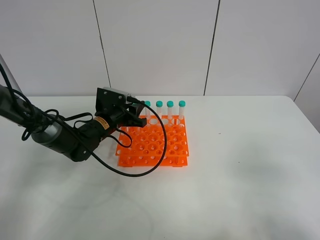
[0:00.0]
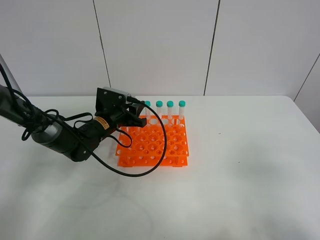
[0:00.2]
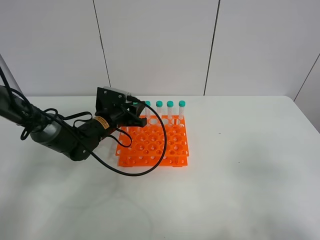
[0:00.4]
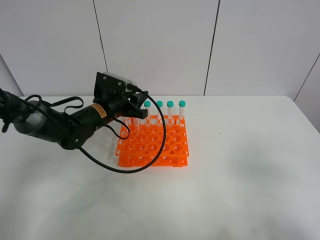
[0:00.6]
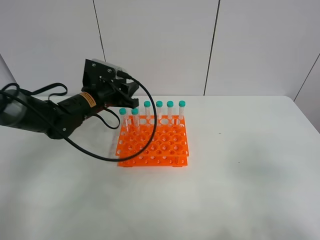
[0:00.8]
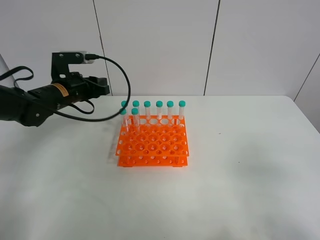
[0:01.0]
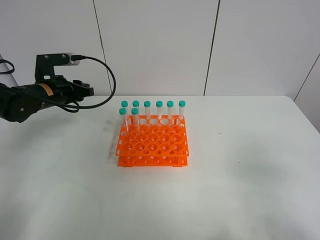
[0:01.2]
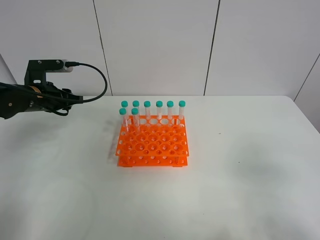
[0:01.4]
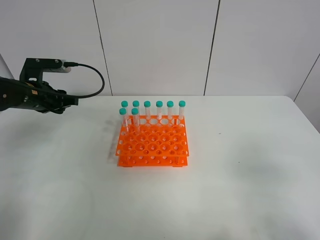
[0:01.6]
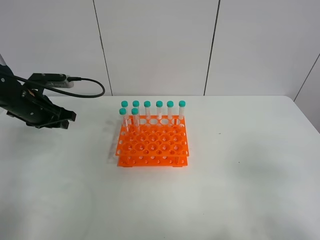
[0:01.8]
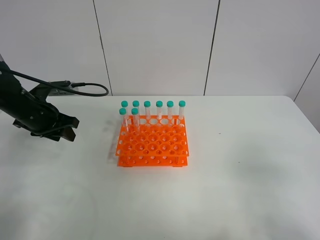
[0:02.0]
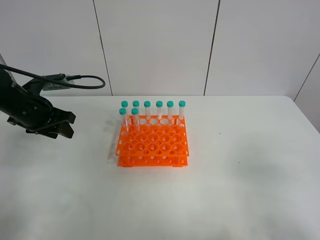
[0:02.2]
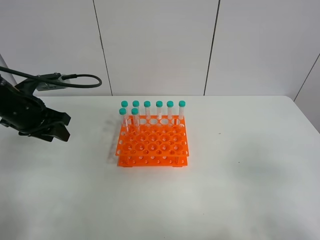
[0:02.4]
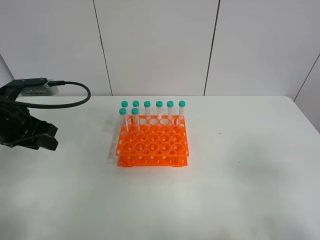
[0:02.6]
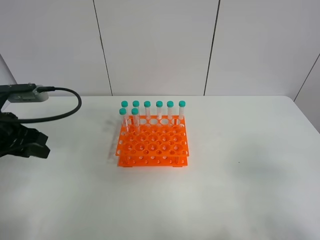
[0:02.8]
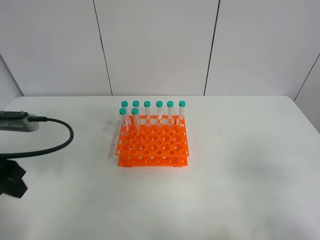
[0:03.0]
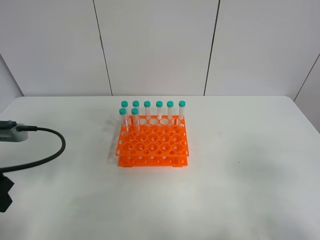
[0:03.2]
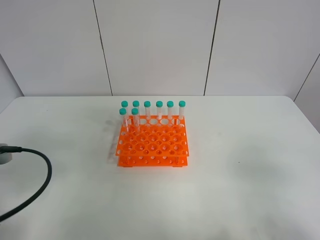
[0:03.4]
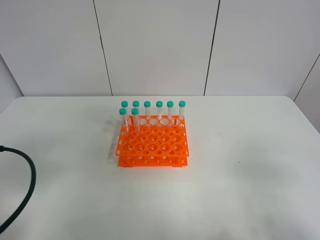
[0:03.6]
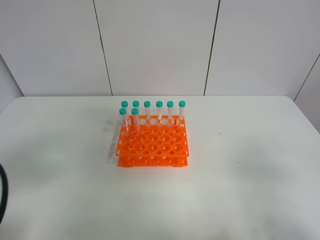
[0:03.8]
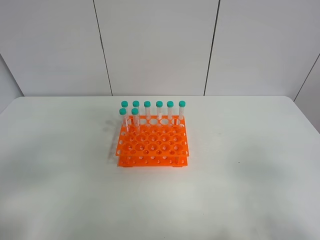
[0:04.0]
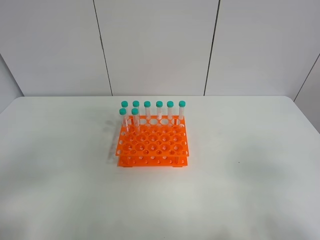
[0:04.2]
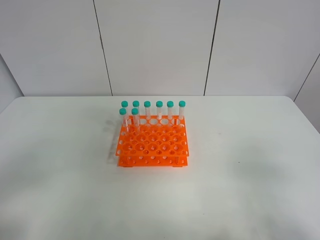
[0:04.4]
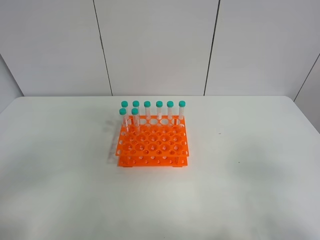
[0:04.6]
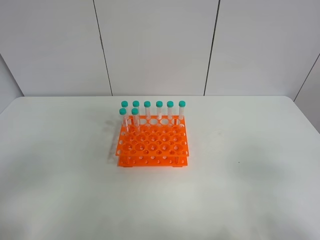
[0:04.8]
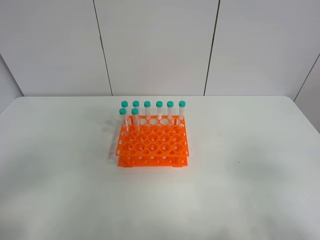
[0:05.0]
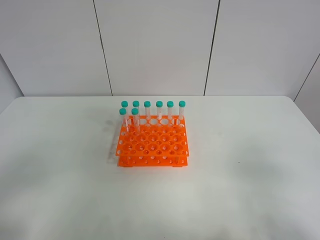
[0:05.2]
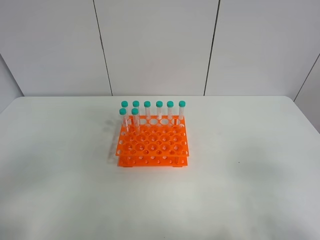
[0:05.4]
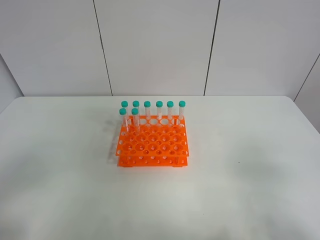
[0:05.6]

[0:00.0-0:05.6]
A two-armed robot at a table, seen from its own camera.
Task of the whole recording: Put the test tube on the table back onto the test tube rack.
0:00.0 to 0:01.4: The left gripper is displaced to the left and upward by about 15 cm.
0:01.4 to 0:02.8: The left gripper heads backward, covering roughly 15 cm.
0:02.8 to 0:04.2: The left gripper shifts approximately 20 cm backward.
